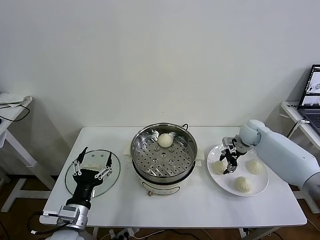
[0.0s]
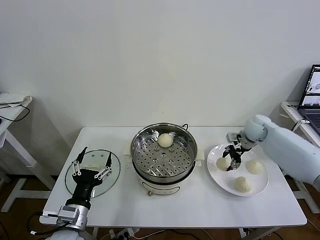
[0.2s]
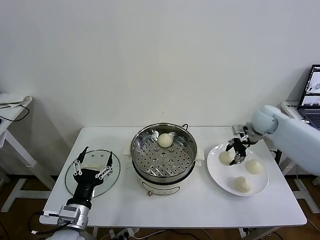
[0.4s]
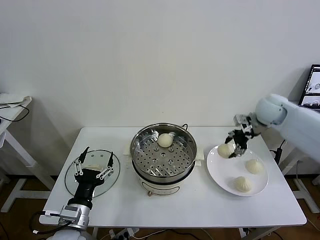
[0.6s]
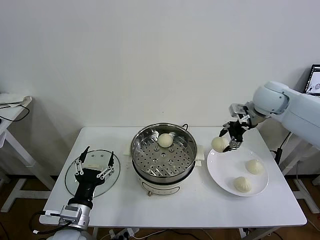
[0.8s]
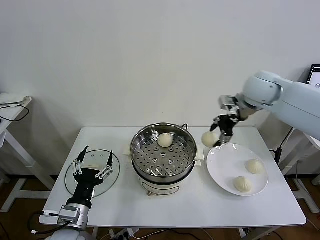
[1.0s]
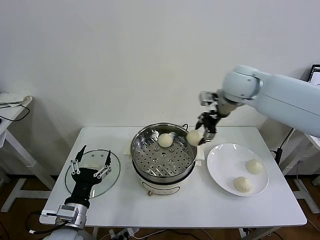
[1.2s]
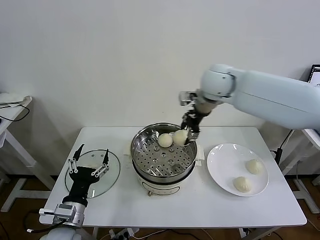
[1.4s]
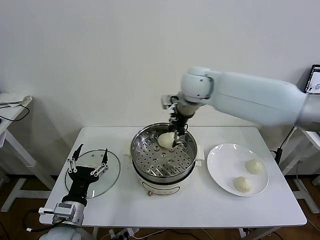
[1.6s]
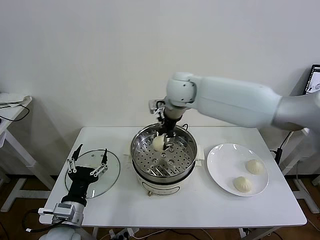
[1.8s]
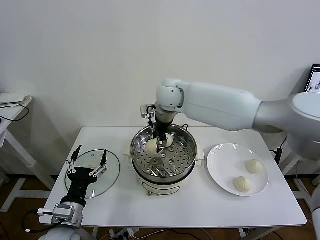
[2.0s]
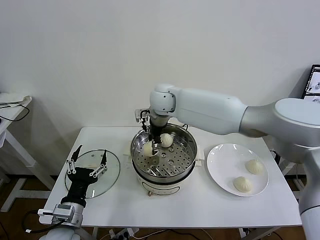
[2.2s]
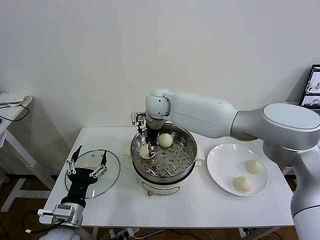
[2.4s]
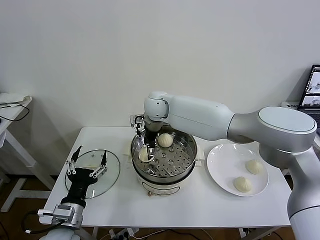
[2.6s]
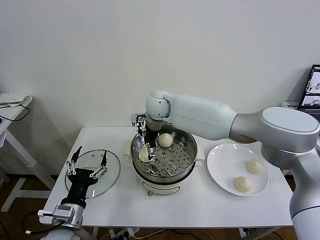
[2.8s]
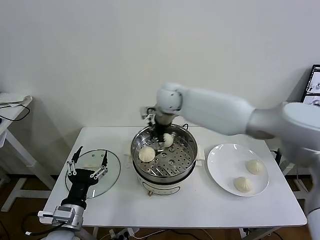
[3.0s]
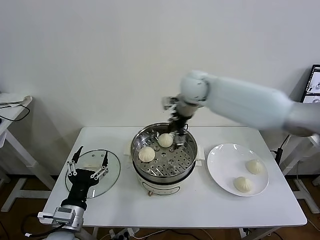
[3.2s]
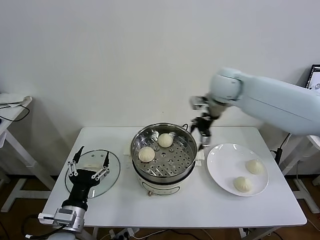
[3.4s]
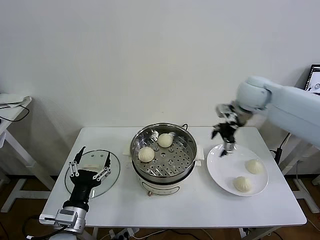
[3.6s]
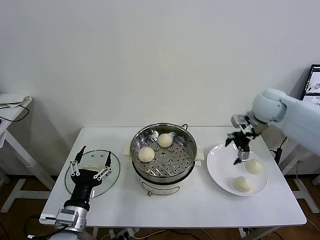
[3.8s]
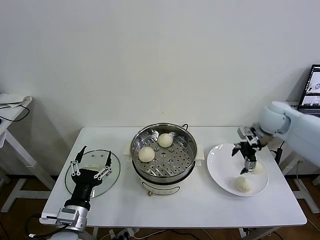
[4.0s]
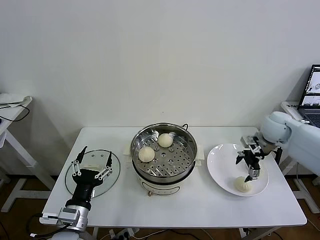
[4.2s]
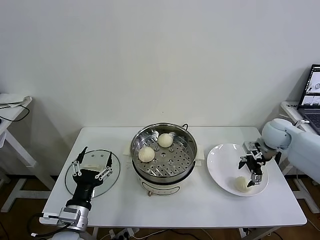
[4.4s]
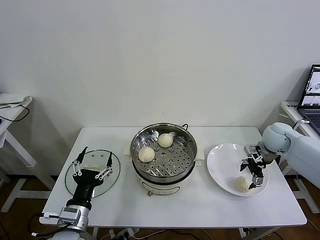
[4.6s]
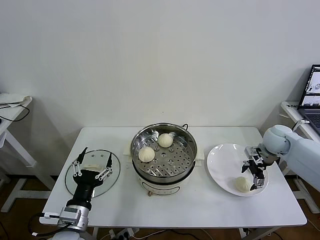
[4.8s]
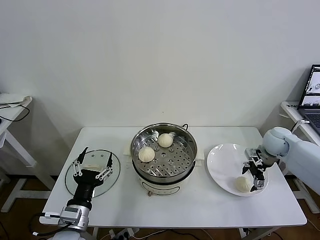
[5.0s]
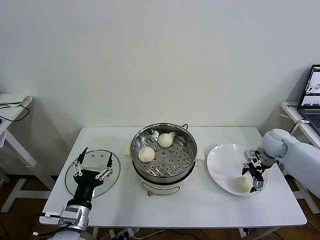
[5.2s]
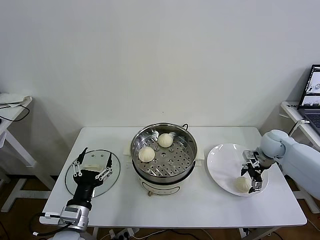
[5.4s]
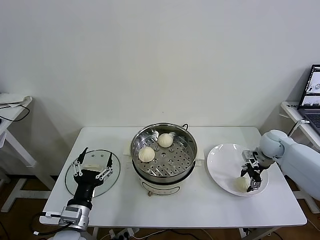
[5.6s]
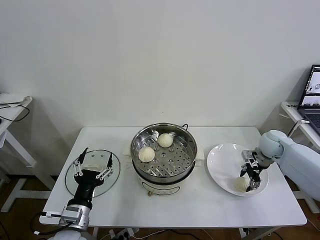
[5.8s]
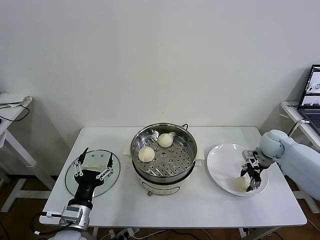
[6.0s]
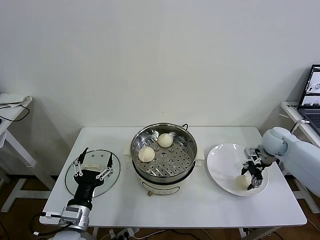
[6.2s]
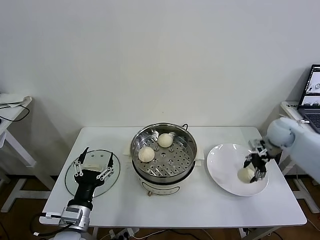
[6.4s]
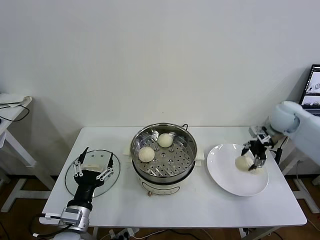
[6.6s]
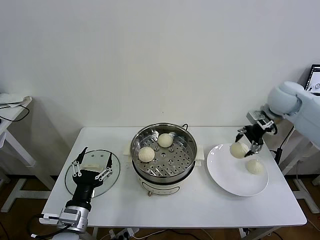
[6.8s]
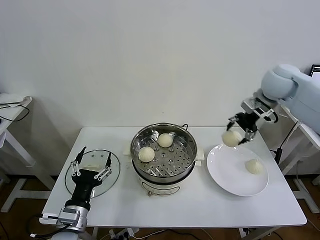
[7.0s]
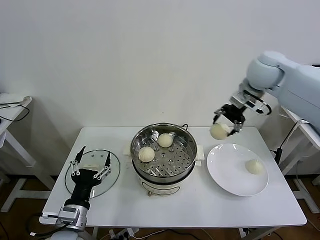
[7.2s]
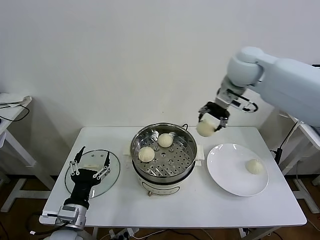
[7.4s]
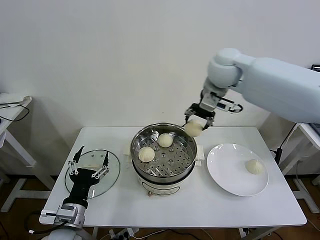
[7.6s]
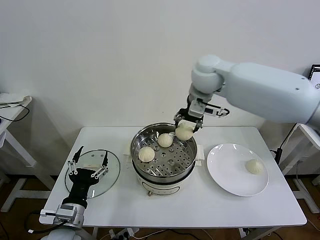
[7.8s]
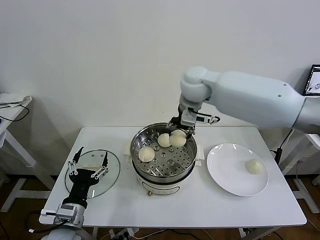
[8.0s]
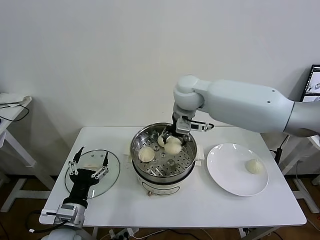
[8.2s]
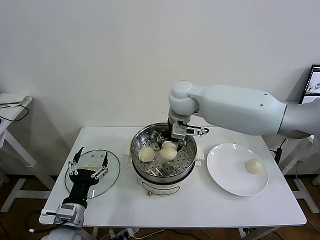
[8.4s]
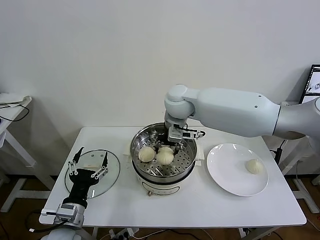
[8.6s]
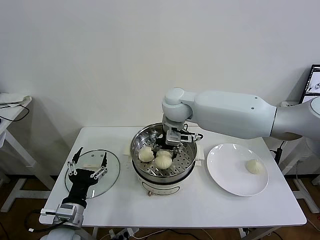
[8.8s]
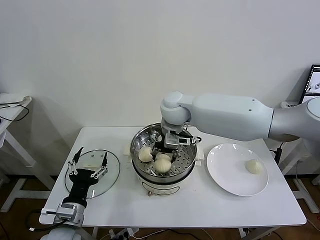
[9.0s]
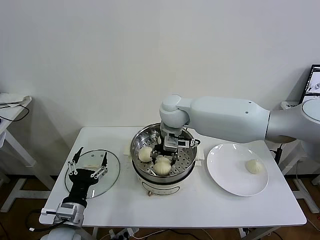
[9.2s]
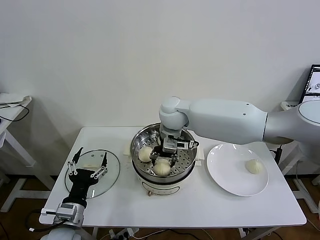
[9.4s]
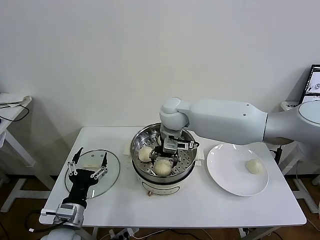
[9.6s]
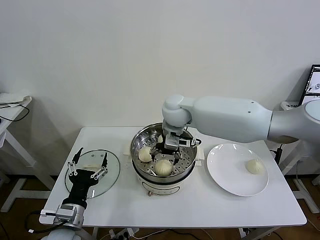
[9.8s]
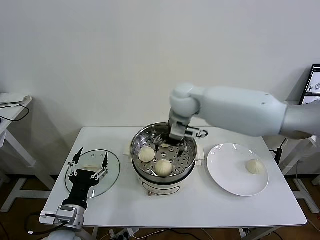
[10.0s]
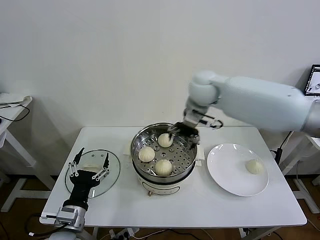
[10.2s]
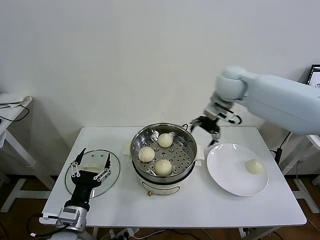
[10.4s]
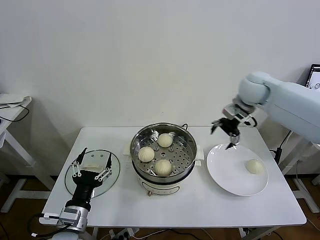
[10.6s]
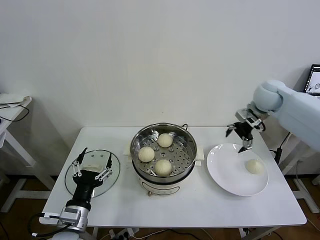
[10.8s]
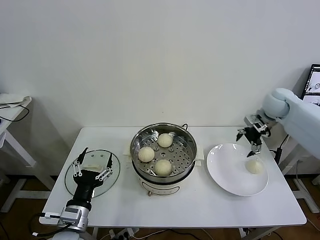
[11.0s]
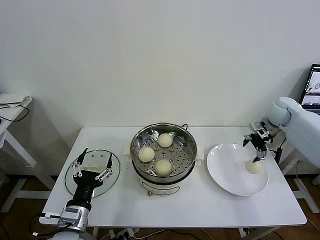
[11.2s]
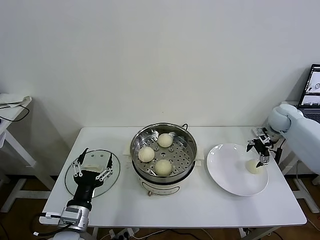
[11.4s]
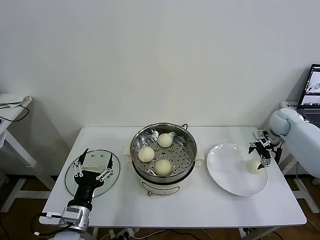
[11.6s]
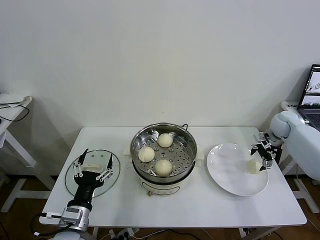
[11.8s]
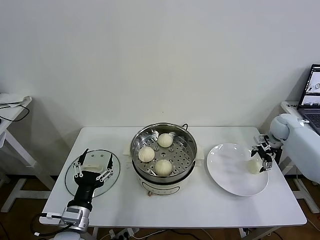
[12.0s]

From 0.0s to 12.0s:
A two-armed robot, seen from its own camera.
Task of the whole recording: take steamed baozi put them in steamer then cover it.
Step, from 0.0s to 3.0s: Place the baozi on the steamer with right gripper.
Step, from 3.2s to 6.0s: Grasp the baozi in the plate with right gripper.
Step, from 6.2s to 9.8s: Place the baozi on the steamer with right gripper.
From 0.0s to 1.6s: The right gripper heads to the left and upward, covering approximately 35 cm.
From 1.6s to 3.0s: The right gripper opens its fingers.
From 3.0s to 4.4s: The right gripper moves to the right, approximately 35 cm.
From 4.4s to 6.0s: The right gripper goes some 5 cm downward, and closes up.
From 6.0s to 7.6s: The right gripper shifts approximately 35 cm upward and to the left.
From 7.6s to 9.0s: The right gripper travels to the left and downward by some 15 cm.
From 9.0s to 10.4s: The right gripper travels to the right by about 20 cm, and opens up.
From 10.4s to 12.0s: The right gripper goes roughly 30 cm to the right and downward.

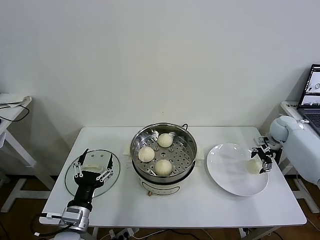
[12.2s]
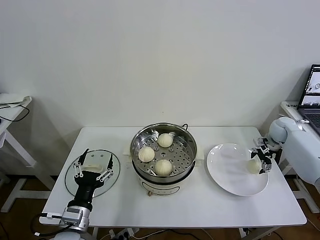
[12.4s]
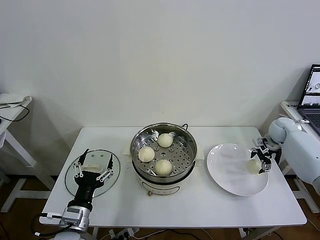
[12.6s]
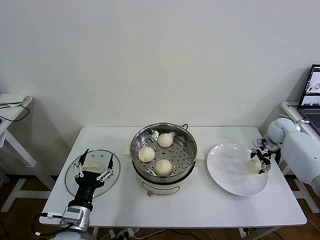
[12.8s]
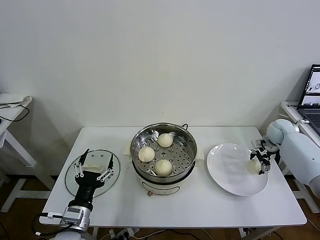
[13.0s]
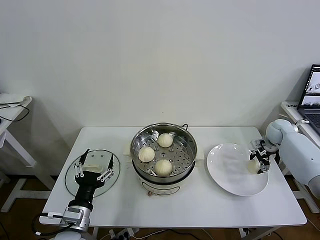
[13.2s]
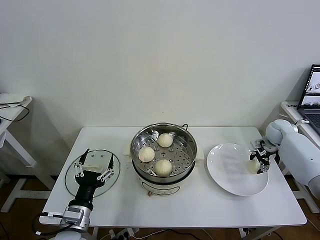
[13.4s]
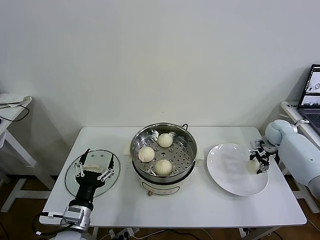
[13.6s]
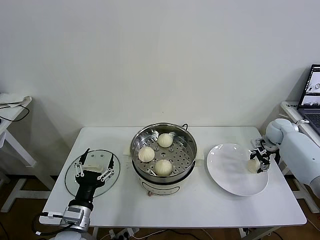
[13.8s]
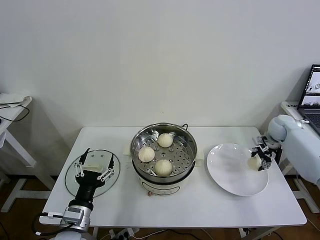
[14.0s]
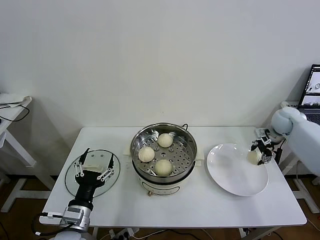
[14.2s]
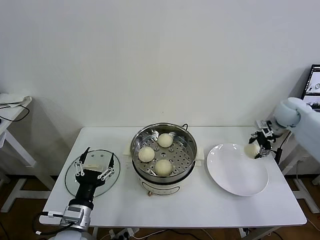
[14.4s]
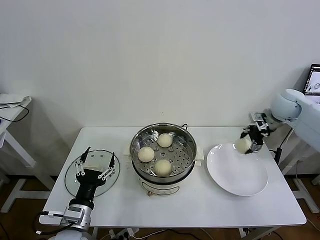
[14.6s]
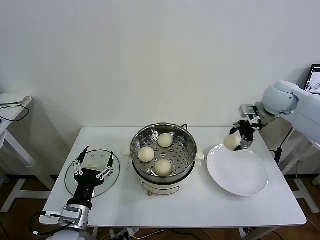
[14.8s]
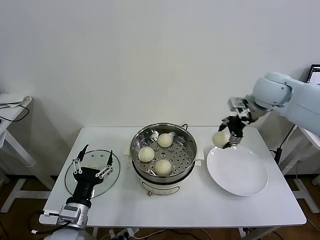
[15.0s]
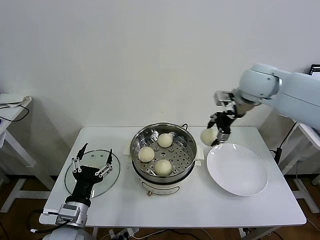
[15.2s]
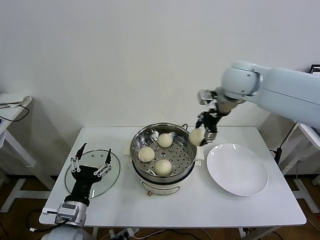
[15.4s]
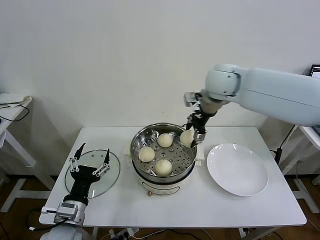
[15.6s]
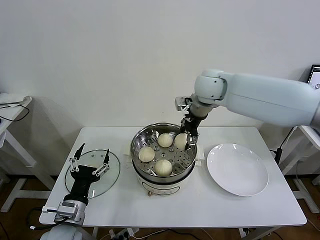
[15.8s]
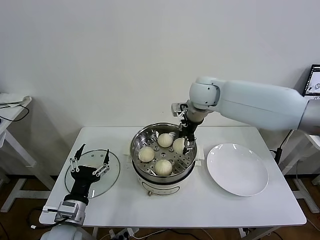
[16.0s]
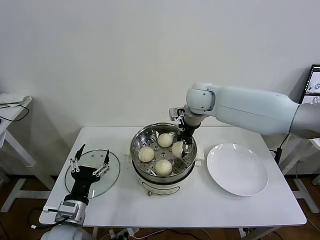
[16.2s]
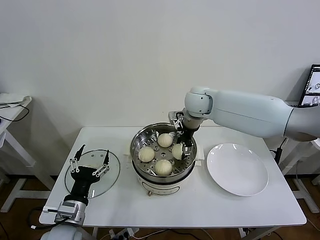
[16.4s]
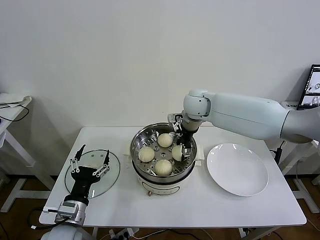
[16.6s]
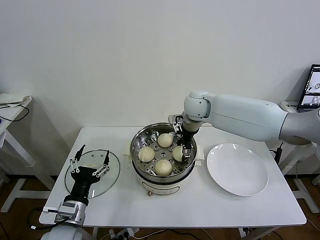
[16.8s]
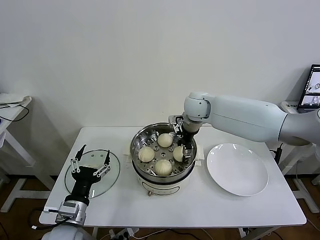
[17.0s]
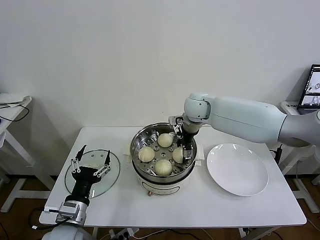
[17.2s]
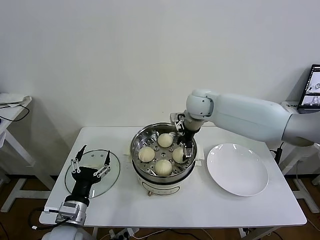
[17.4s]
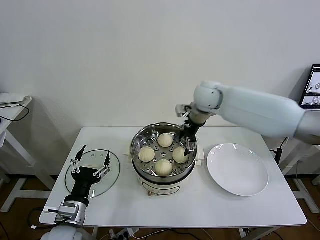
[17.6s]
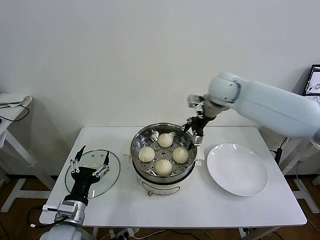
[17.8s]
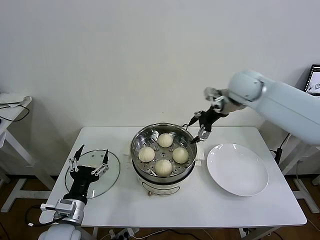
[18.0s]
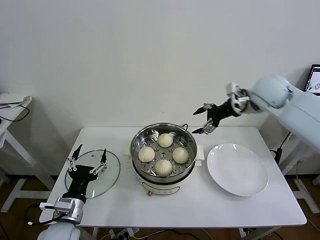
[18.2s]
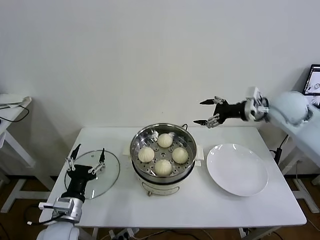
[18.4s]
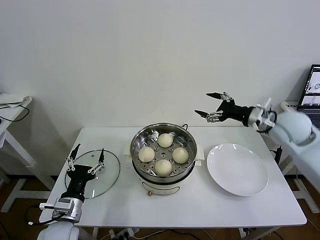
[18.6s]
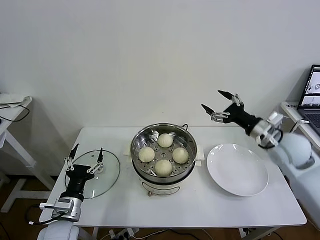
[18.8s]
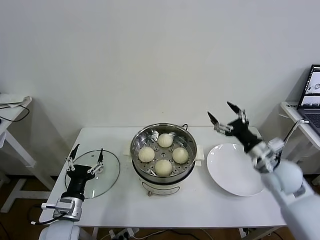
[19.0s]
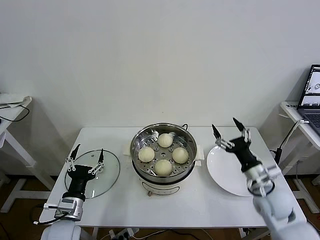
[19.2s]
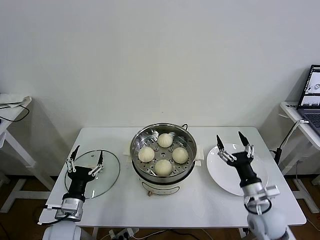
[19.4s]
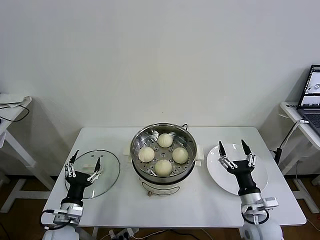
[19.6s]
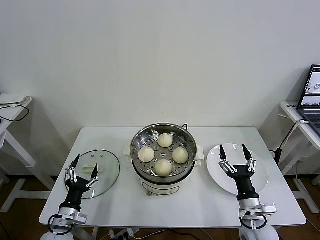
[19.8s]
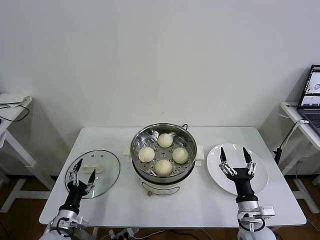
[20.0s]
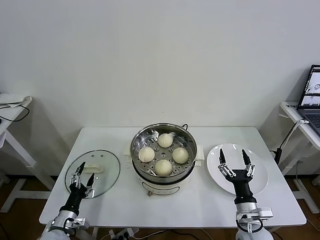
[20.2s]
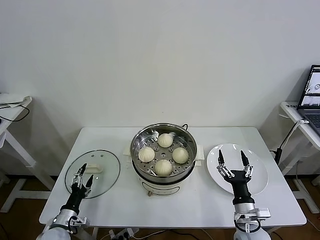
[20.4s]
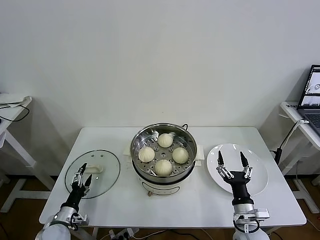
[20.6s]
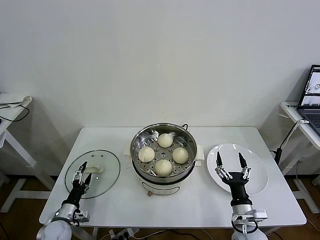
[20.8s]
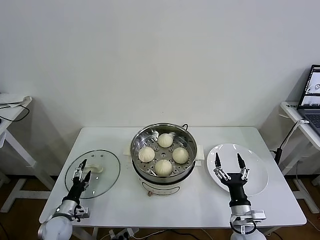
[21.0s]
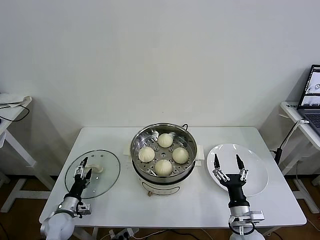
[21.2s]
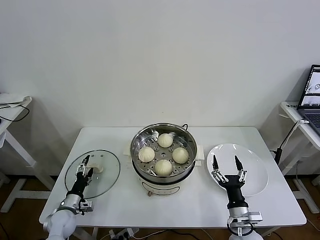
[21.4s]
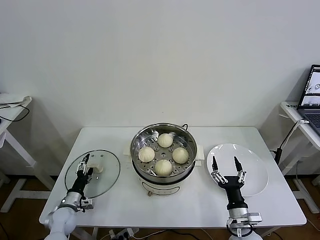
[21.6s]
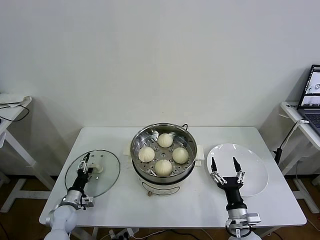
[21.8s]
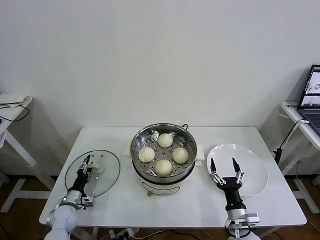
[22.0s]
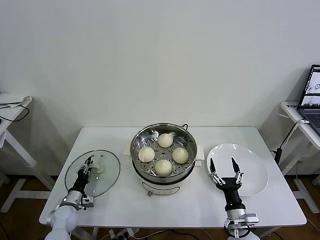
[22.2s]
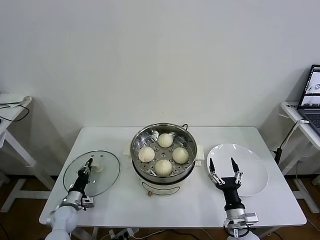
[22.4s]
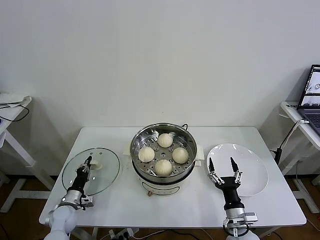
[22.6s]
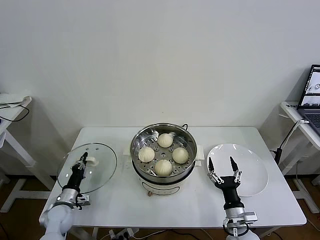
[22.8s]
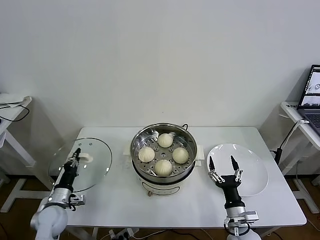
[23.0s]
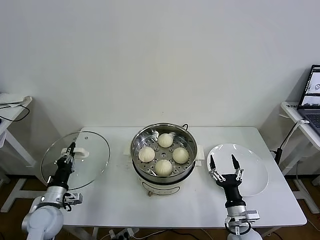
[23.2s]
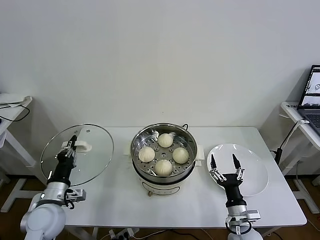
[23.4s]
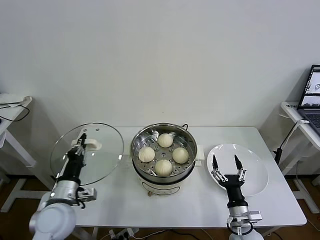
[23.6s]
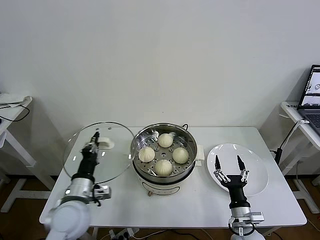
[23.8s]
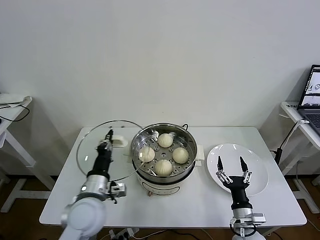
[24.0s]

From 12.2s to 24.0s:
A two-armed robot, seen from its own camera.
Task of the whole recording: take steamed baozi put them in steamer then cover it.
Step, from 13.8s to 17.4s: Place the baozi on the steamer with right gripper.
Step, from 17.6s to 22.6s: Grasp the pot lid with left gripper.
From 12.2s to 13.6s: The right gripper closes its fingers.
From 13.6s to 15.2s: The right gripper moves upward and to the left, approximately 35 cm.
From 15.2s to 16.6s: The right gripper goes some 15 cm to the left and downward.
From 16.6s to 18.2s: The right gripper is displaced to the right by roughly 20 cm, and opens its fingers.
From 18.2s to 19.6s: The right gripper travels downward and backward by roughly 40 cm. The left gripper goes about 5 cm downward.
From 19.6s to 21.0s: The right gripper moves about 5 cm, while the left gripper shifts approximately 15 cm downward and to the left.
From 21.0s to 22.6s: The left gripper closes up.
From 22.6s to 24.0s: The left gripper is displaced upward and to the right by about 25 cm.
